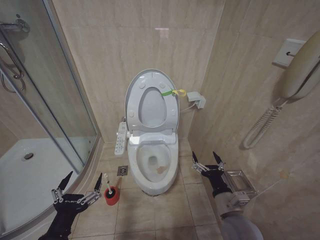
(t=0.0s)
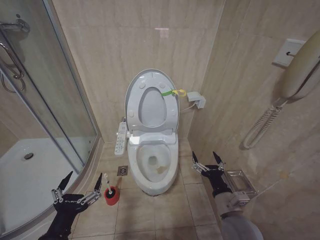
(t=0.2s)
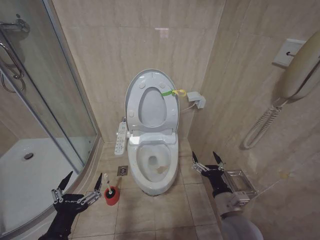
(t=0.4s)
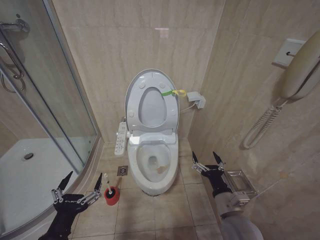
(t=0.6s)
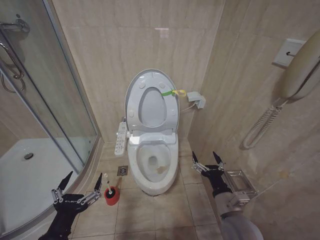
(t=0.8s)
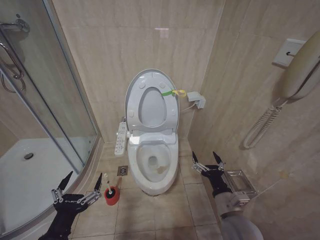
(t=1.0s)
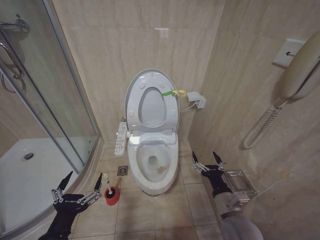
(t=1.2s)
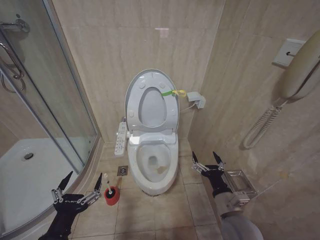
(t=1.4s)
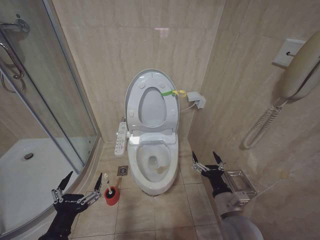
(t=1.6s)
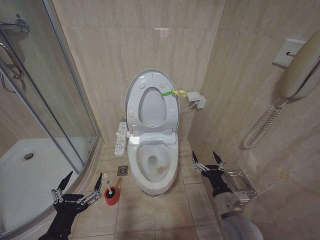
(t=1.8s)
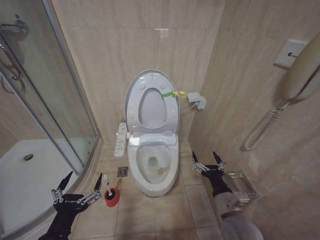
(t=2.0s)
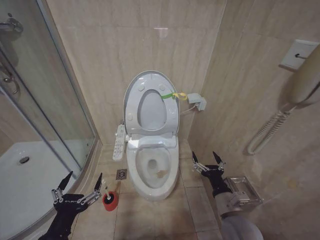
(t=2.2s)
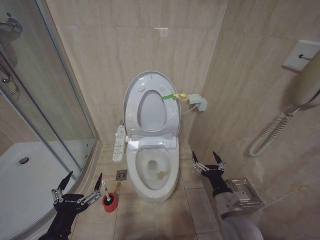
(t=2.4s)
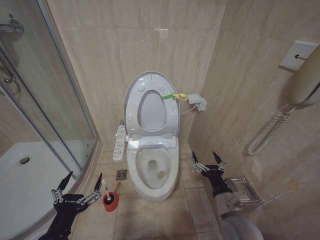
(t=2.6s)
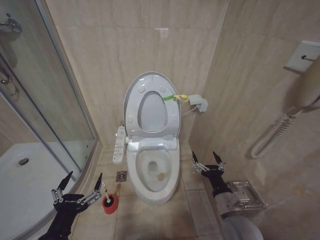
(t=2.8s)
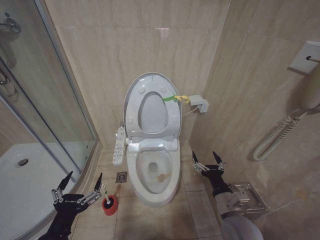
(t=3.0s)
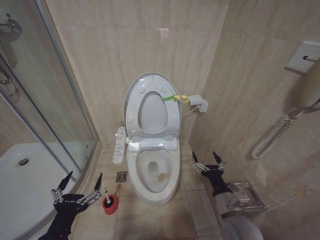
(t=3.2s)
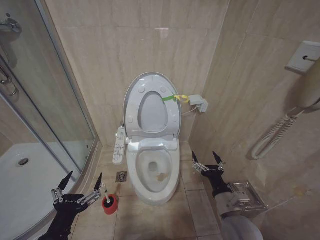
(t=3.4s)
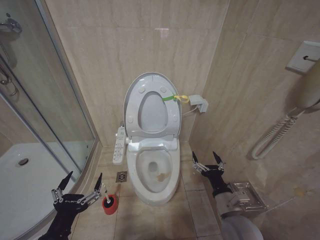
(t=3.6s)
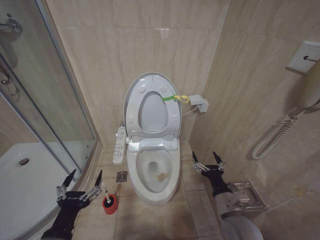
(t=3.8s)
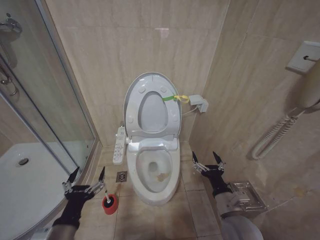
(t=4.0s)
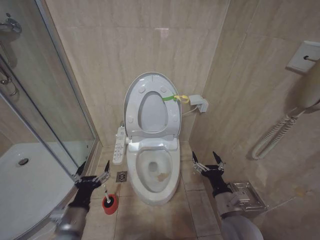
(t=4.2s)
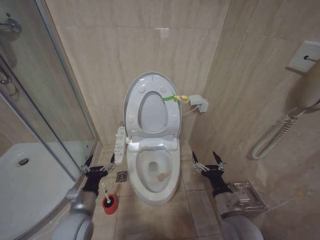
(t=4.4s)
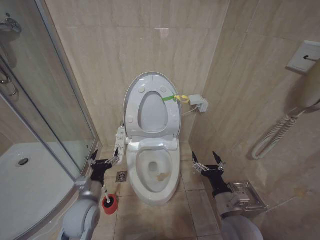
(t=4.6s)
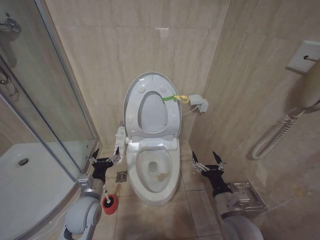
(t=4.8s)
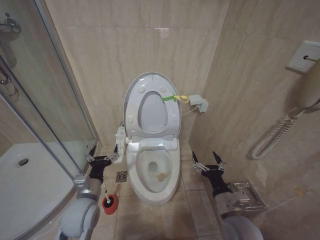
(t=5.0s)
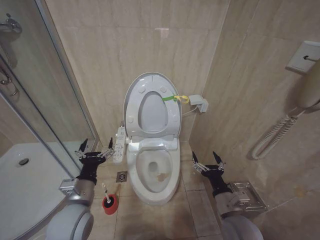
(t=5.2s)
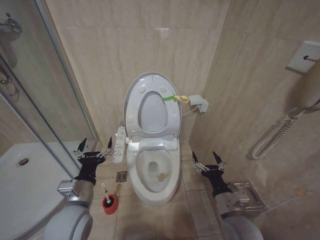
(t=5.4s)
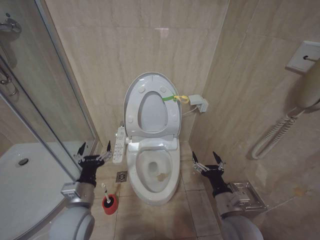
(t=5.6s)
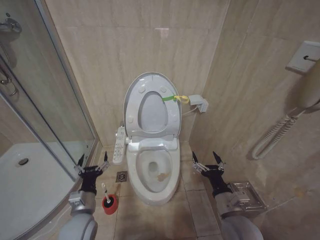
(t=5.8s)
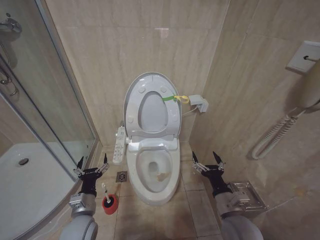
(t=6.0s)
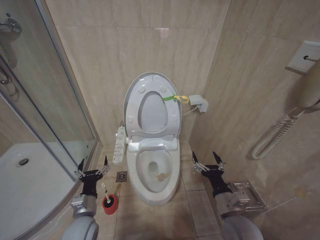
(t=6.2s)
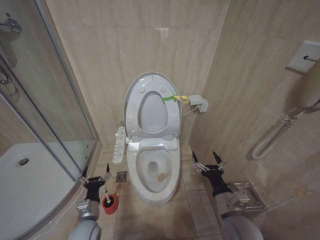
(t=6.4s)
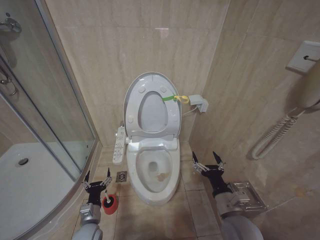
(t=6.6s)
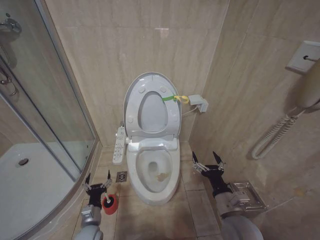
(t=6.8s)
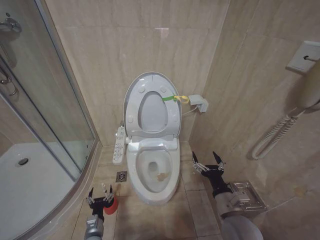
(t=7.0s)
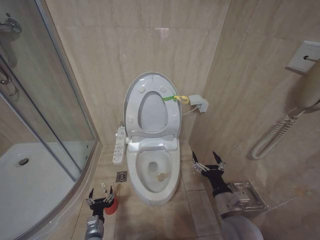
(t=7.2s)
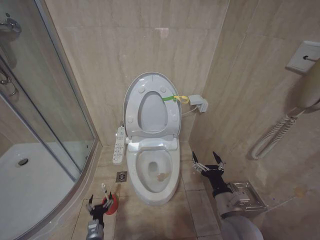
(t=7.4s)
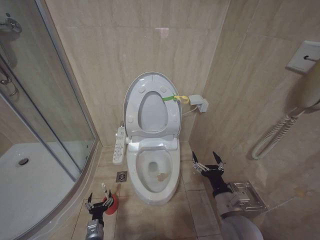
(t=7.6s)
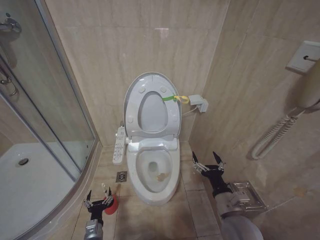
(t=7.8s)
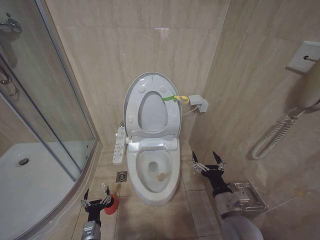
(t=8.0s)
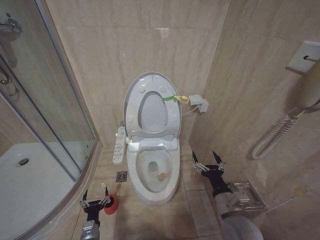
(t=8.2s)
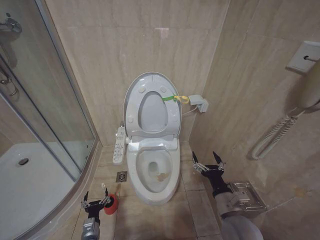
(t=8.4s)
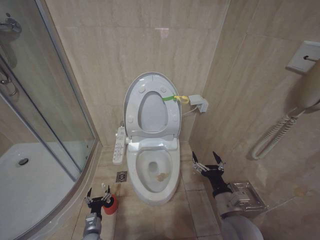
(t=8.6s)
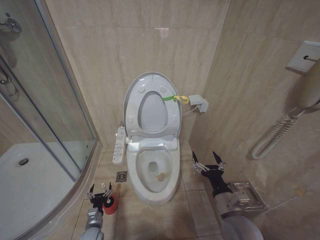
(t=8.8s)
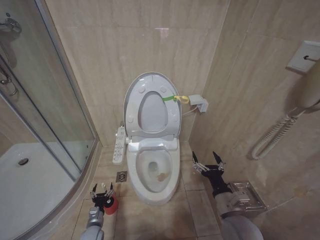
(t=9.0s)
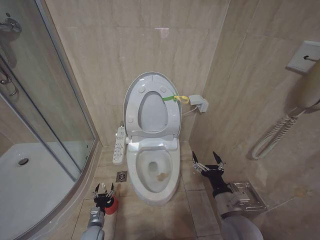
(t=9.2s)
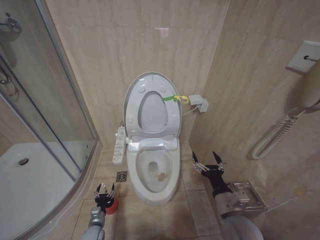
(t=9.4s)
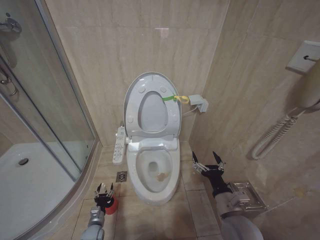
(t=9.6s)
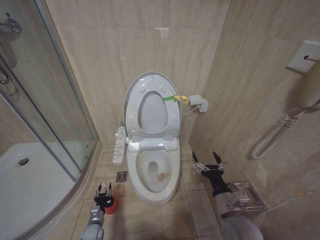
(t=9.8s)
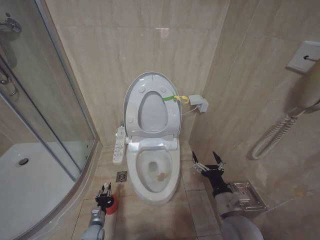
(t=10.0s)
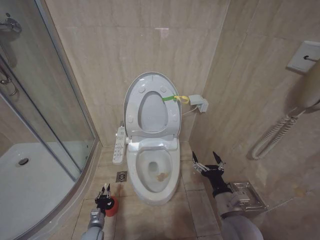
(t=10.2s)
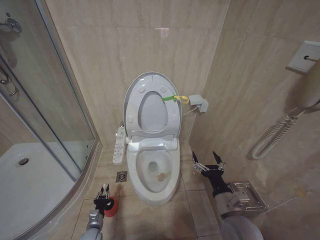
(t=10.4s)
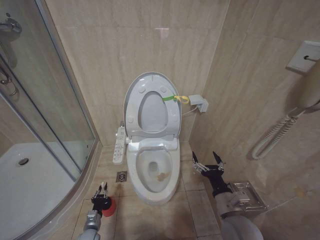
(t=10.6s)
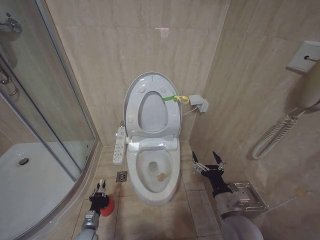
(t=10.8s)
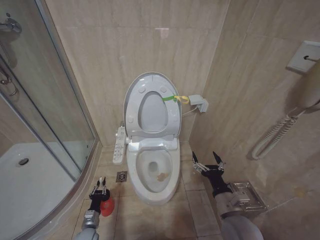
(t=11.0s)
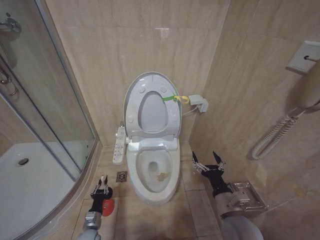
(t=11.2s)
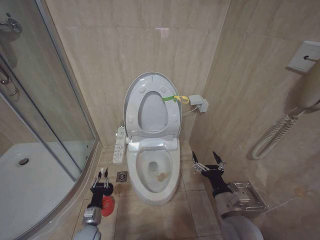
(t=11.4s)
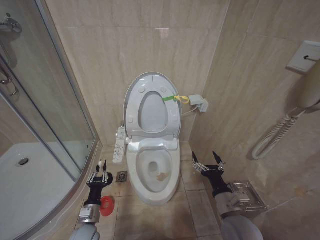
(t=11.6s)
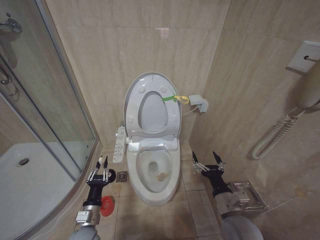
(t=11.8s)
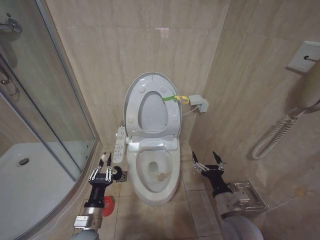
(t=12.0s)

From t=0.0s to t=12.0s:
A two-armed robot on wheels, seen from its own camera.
Task of the whole recording: Open the toilet lid, clean the toilet bowl with a toilet brush, close the toilet lid, and flush.
From t=0.0s to t=3.0s: The two grippers keep their place.
From t=3.0s to t=4.4s: The left gripper travels forward and downward by some 15 cm.
From t=4.4s to t=6.0s: The left gripper shifts by roughly 5 cm.
From t=6.0s to t=7.6s: The left gripper goes approximately 25 cm downward.
From t=7.6s to t=9.0s: The left gripper goes some 5 cm forward.
From t=9.0s to t=10.4s: The left gripper closes up.
From t=10.4s to t=12.0s: The left gripper moves upward, approximately 25 cm.

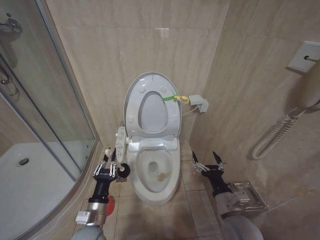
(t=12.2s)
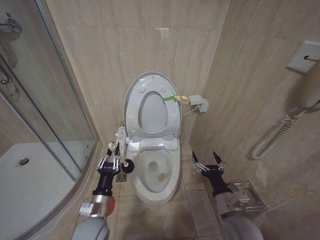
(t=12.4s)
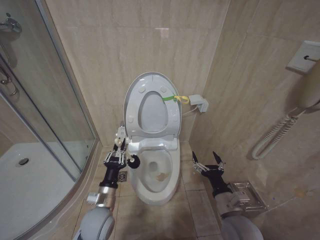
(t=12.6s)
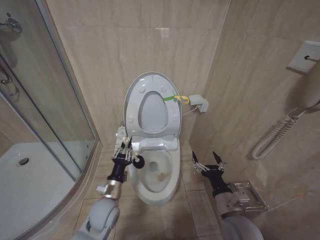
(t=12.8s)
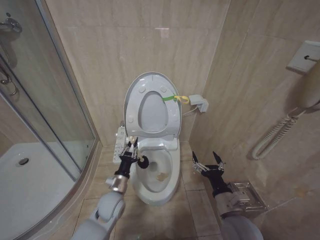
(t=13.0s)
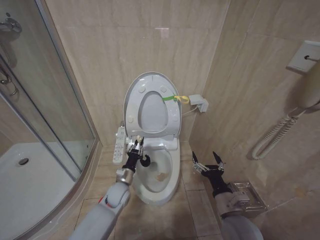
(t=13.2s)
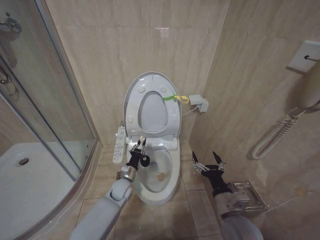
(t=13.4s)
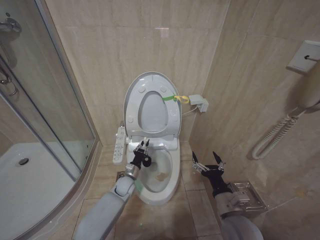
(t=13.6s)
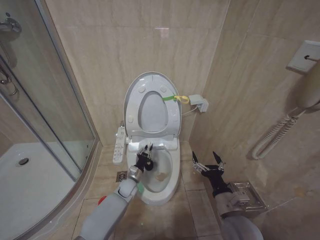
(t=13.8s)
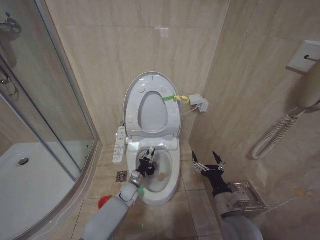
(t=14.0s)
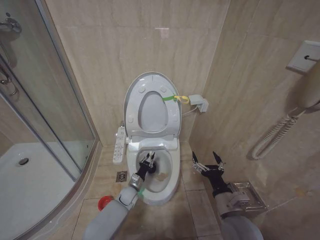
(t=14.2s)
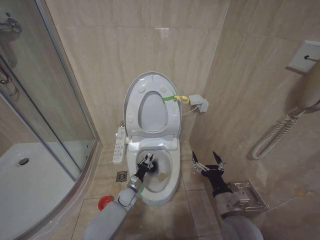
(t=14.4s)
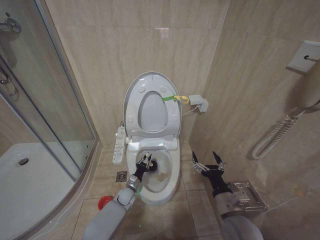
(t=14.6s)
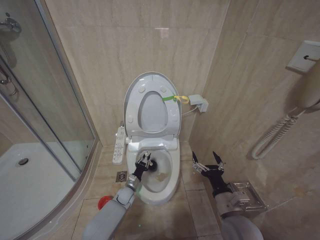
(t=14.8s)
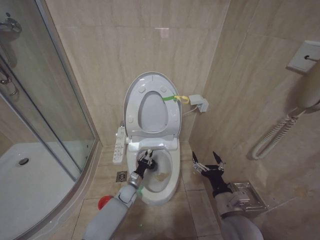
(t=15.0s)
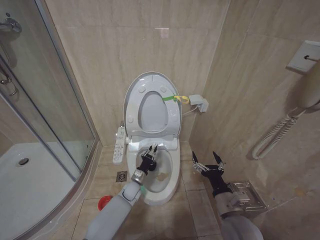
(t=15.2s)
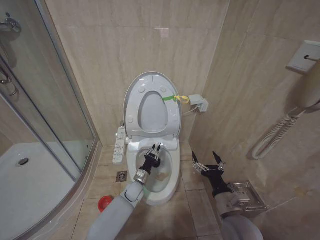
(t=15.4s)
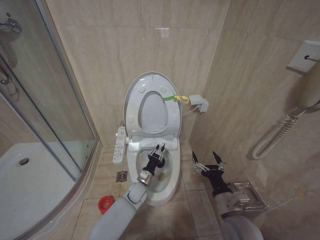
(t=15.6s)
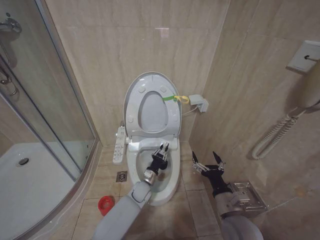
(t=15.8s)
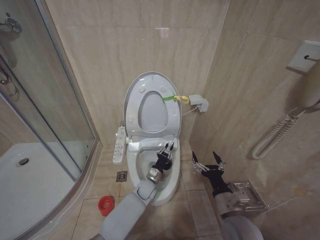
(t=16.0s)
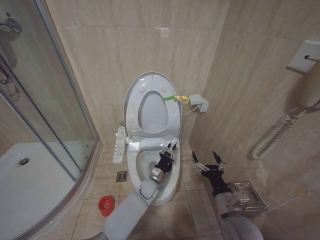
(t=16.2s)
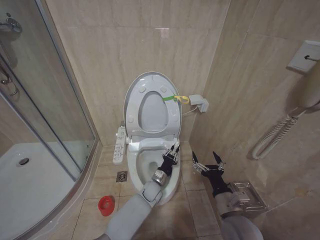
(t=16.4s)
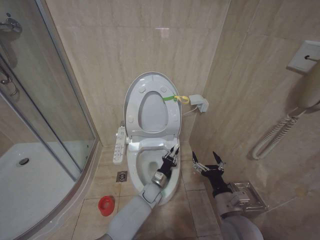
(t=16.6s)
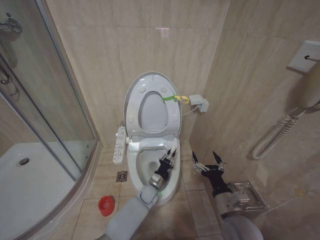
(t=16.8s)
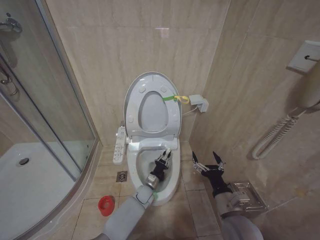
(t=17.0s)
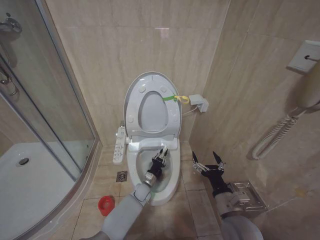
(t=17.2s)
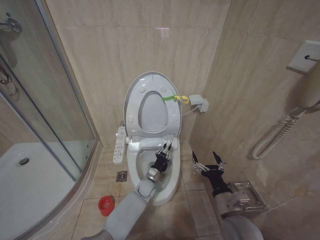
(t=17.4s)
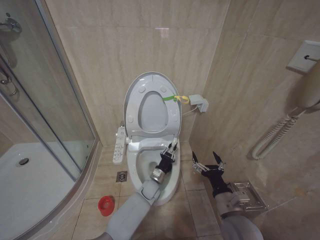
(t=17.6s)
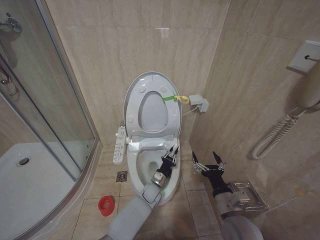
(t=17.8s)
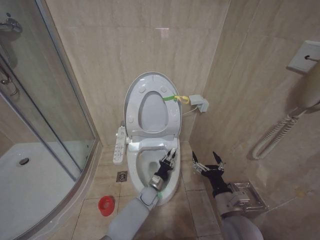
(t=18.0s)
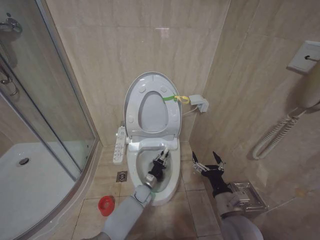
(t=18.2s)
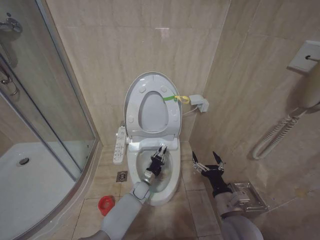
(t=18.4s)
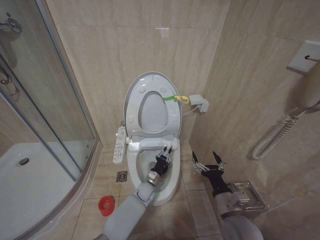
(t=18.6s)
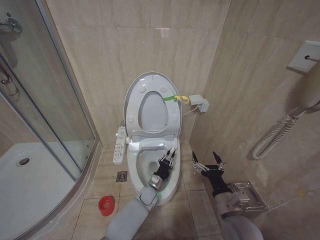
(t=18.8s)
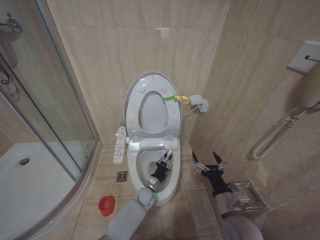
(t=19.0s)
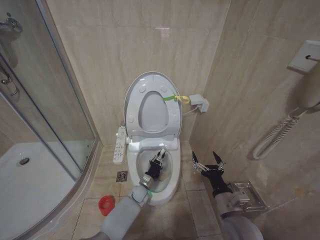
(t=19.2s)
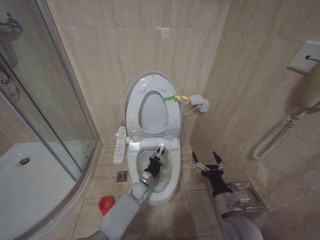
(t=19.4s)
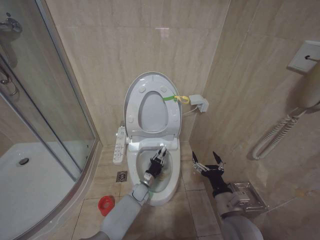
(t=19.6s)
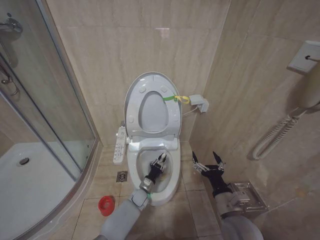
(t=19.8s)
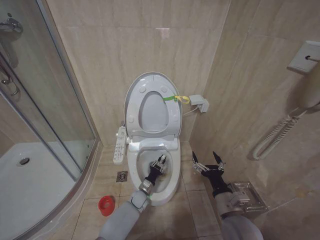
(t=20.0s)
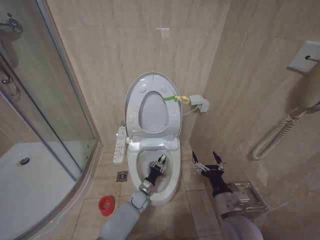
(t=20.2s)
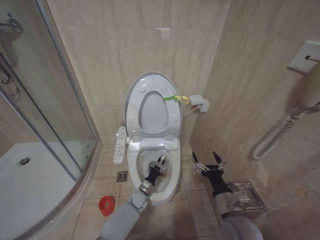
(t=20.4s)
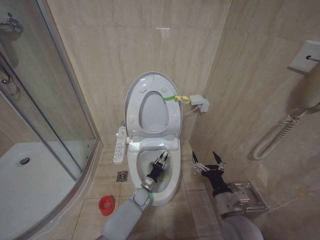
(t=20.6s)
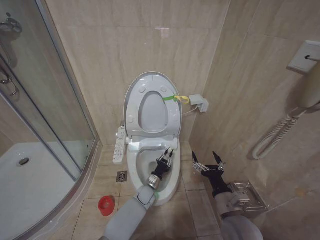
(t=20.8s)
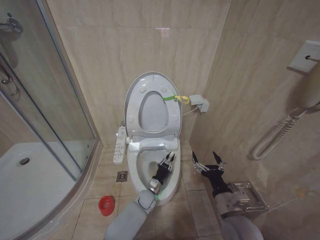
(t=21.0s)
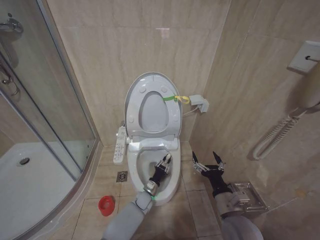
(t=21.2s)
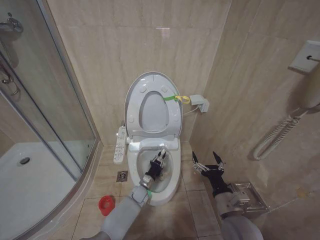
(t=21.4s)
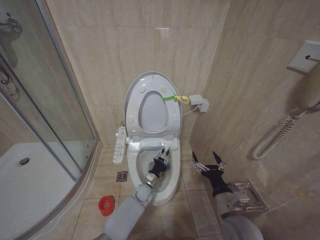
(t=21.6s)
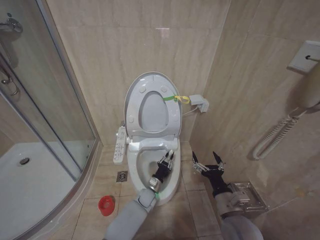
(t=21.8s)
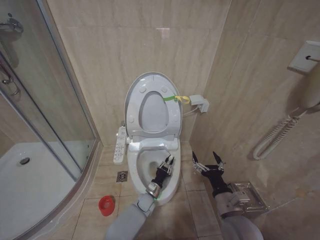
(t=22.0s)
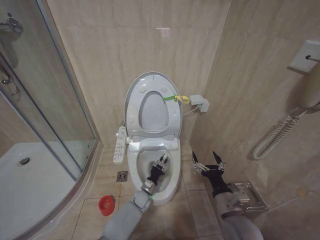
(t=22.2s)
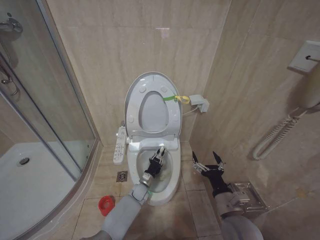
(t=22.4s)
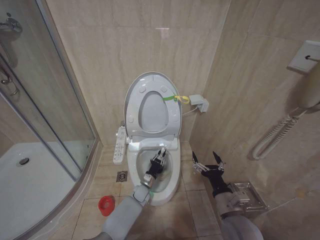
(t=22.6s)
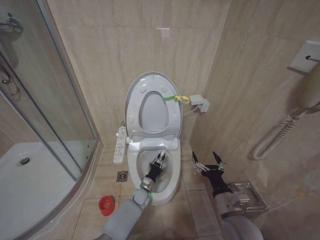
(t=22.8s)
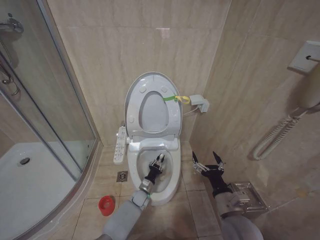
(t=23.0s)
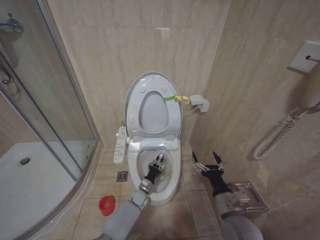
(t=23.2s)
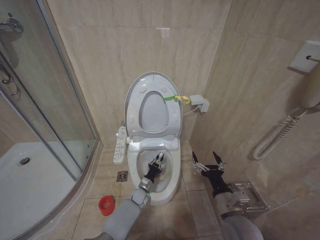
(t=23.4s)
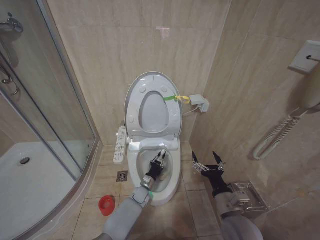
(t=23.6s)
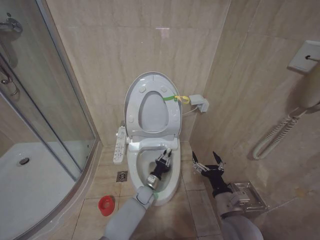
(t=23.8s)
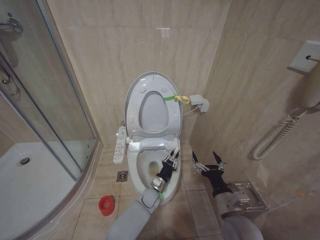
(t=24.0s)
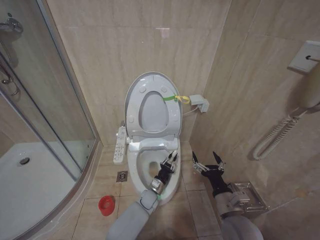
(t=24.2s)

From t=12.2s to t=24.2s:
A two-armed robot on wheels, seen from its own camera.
Task of the whole recording: Open the toilet lid, clean the toilet bowl with a toilet brush, close the toilet lid, and flush.
From t=12.2s to t=13.8s: The left gripper heads forward and downward, covering roughly 25 cm.
From t=15.2s to t=16.6s: The left gripper heads to the right, covering about 10 cm.
From t=16.6s to t=18.2s: The left gripper goes up and down, roughly 5 cm each way, reversing 2 times.
From t=19.8s to t=22.6s: There are only small adjustments of the grippers.
From t=22.6s to t=24.2s: The left gripper ends up roughly 5 cm from where it was.
